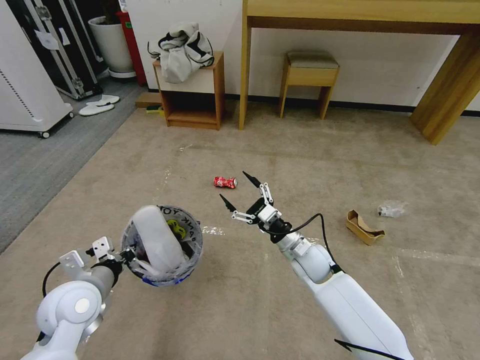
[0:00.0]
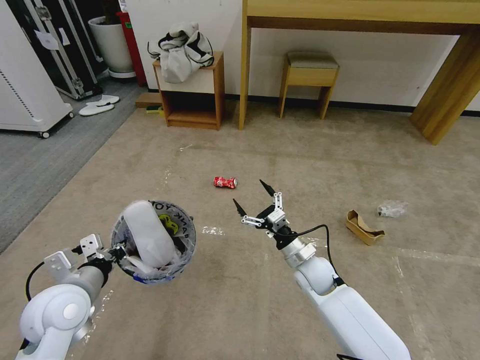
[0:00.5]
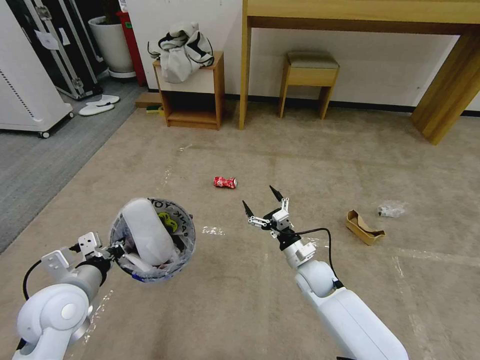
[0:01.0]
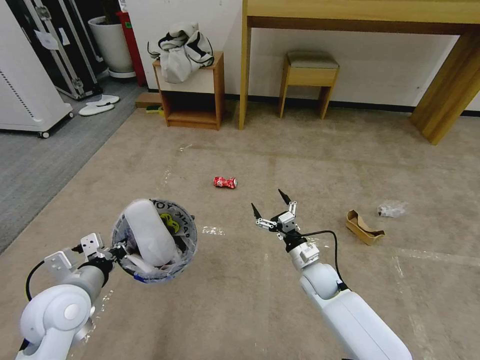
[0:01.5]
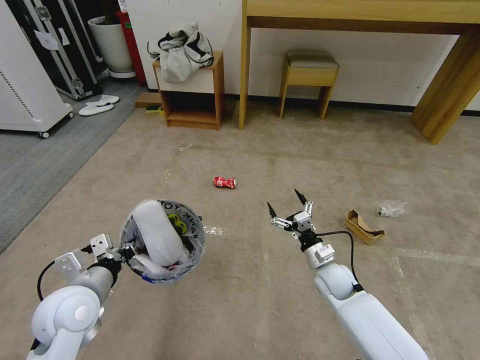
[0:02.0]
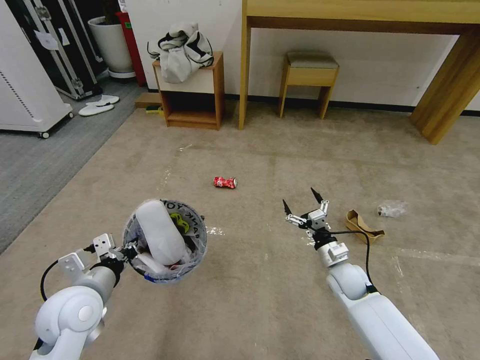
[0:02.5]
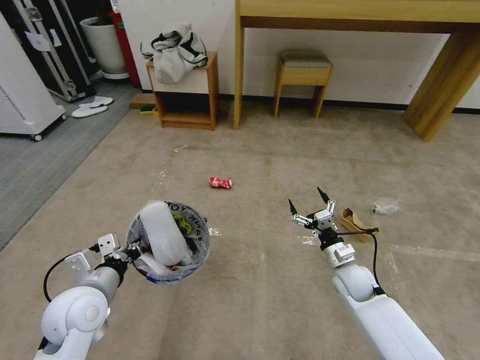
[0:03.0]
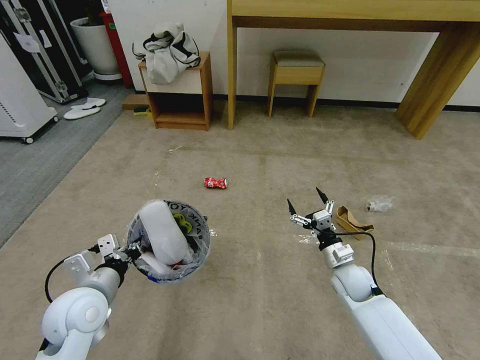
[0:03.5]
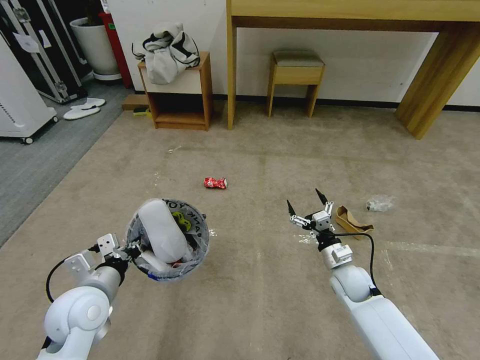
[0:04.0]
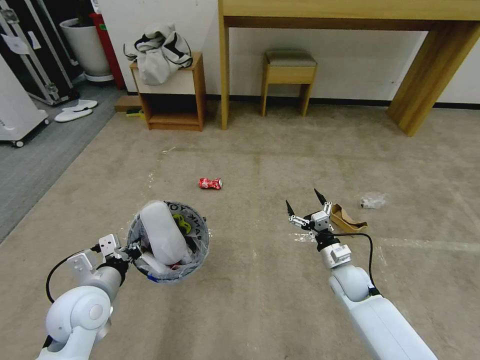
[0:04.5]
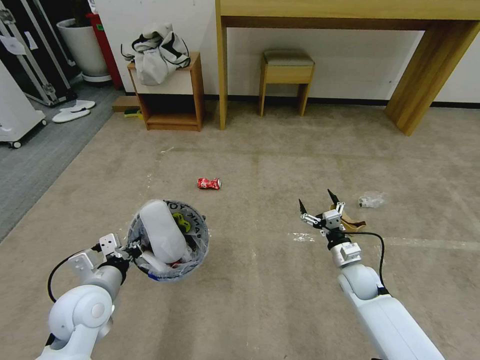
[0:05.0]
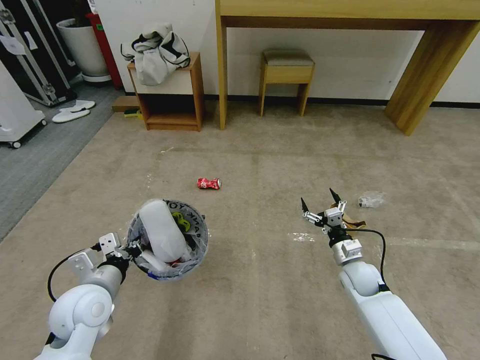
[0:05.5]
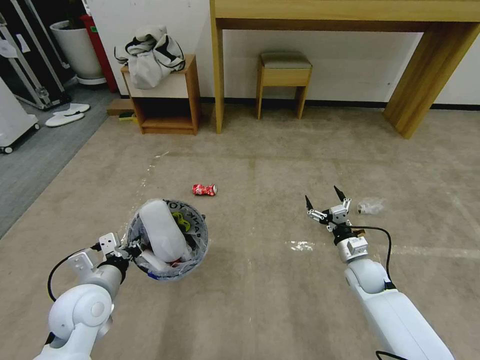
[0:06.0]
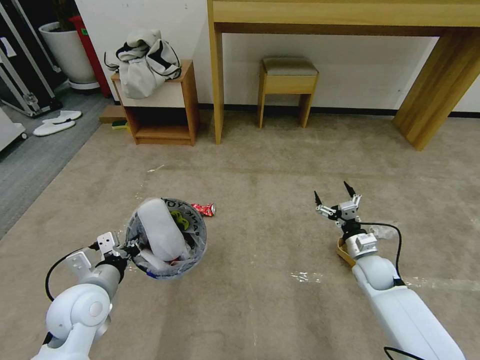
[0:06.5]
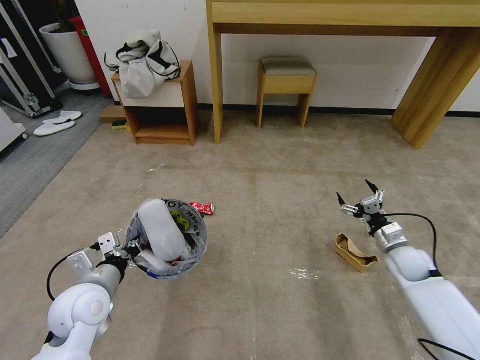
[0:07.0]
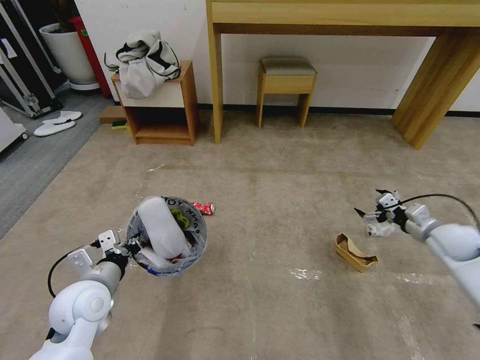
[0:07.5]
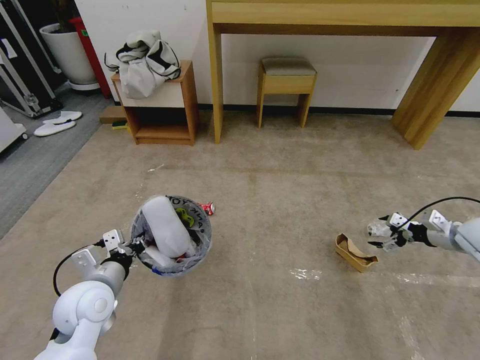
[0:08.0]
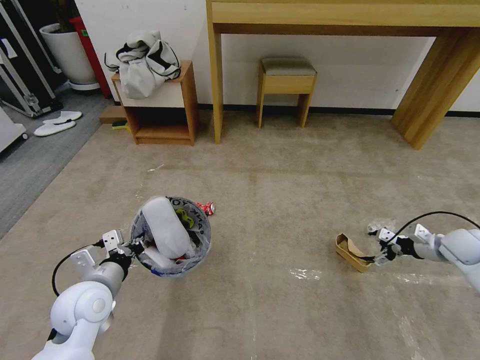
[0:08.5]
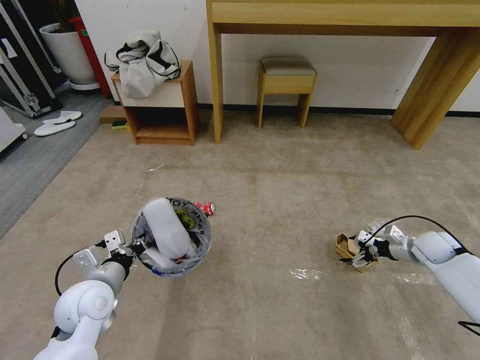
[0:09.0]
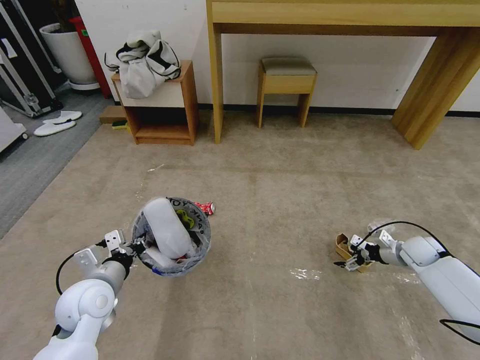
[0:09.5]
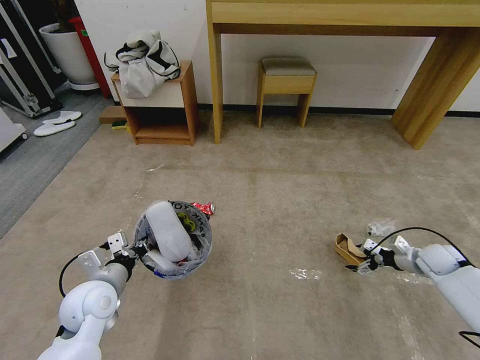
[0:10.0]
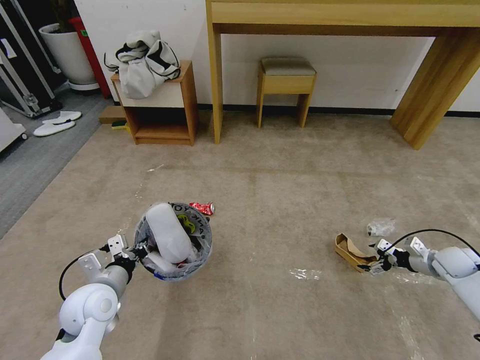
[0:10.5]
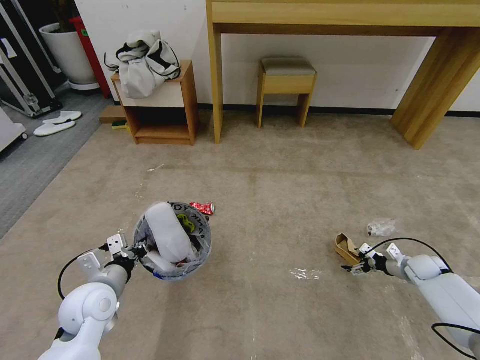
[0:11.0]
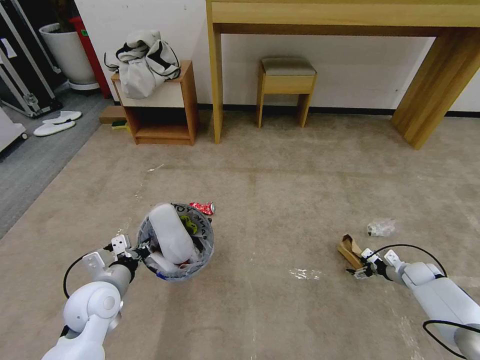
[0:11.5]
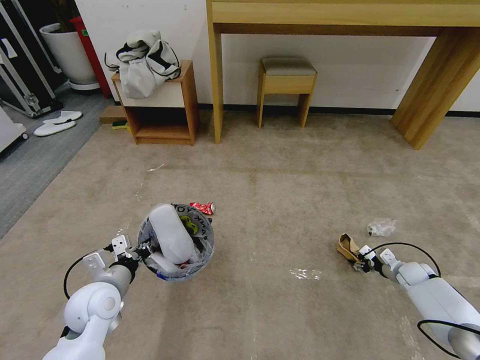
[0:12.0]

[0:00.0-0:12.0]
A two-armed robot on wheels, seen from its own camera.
Task of the whole recording: Pick up the trash bin and place the garbage on the floor into it.
0:00.0 to 0:02.0: The right gripper is displaced to the right and downward by about 10 cm.
0:06.0 to 0:08.0: The right gripper is displaced to the right and upward by some 25 cm.
0:08.0 to 0:10.0: The right gripper travels downward by about 15 cm.
0:10.0 to 0:12.0: The right gripper shifts some 10 cm downward.

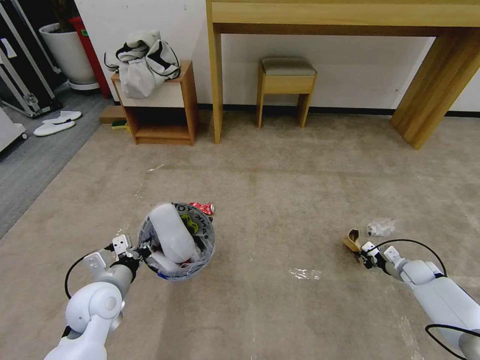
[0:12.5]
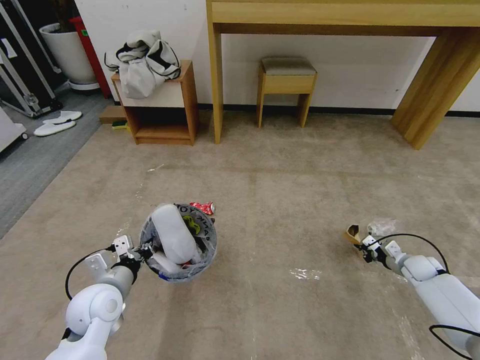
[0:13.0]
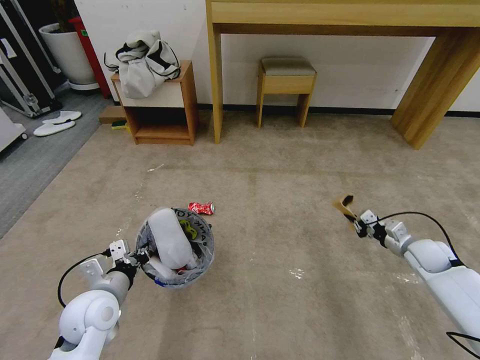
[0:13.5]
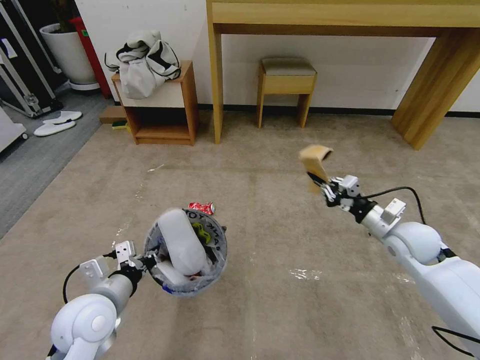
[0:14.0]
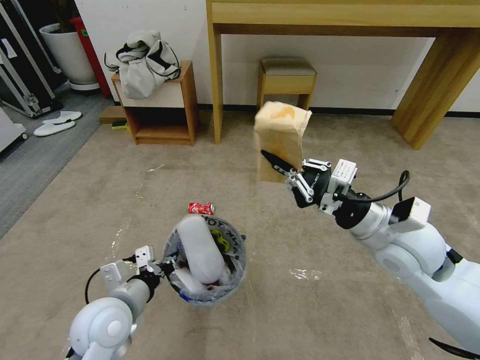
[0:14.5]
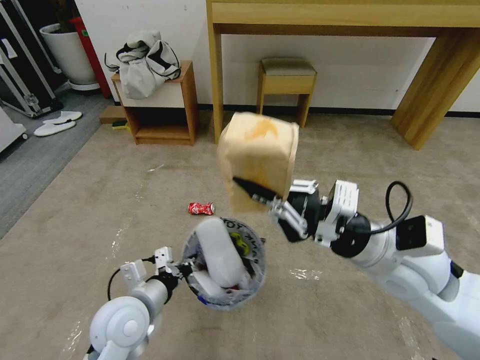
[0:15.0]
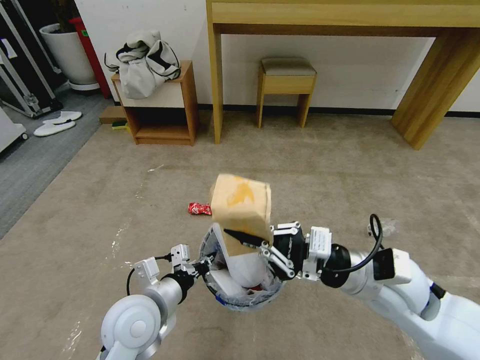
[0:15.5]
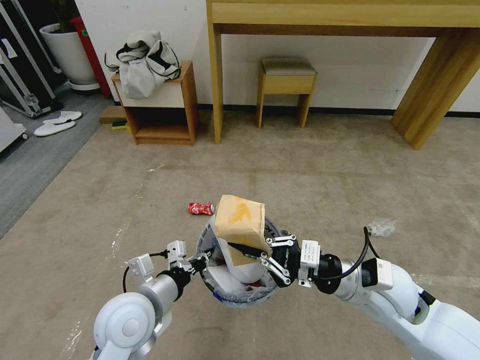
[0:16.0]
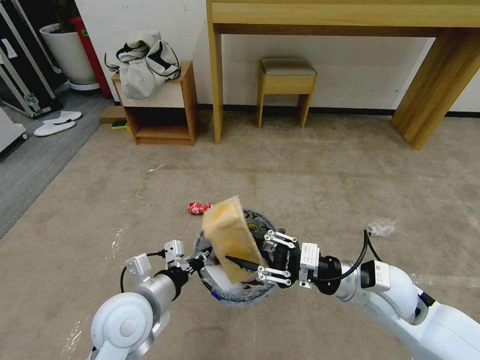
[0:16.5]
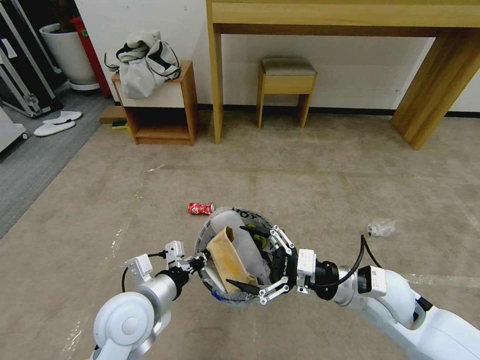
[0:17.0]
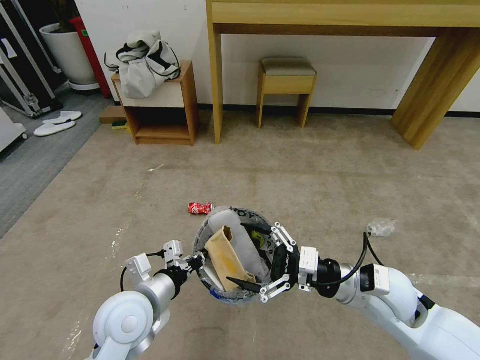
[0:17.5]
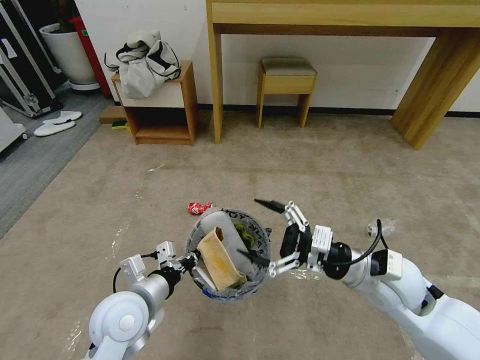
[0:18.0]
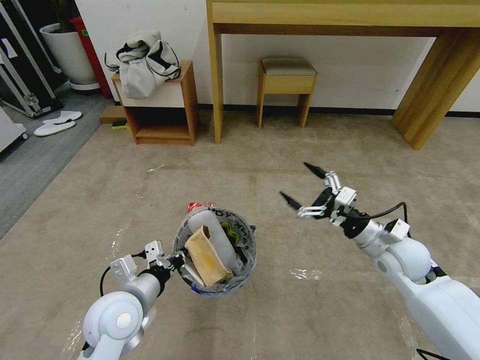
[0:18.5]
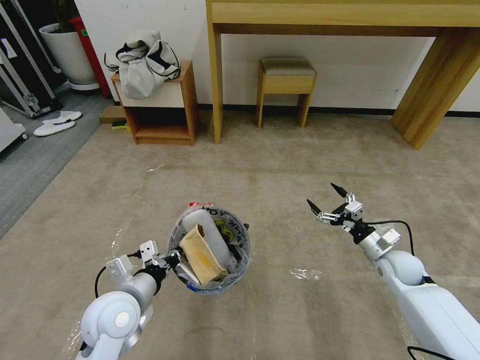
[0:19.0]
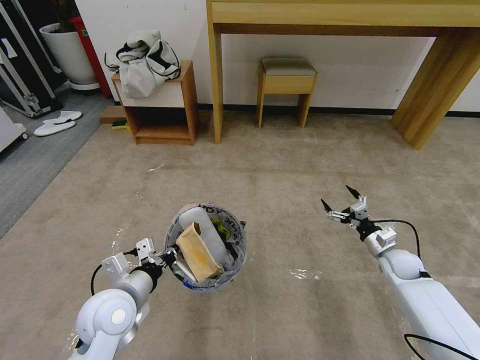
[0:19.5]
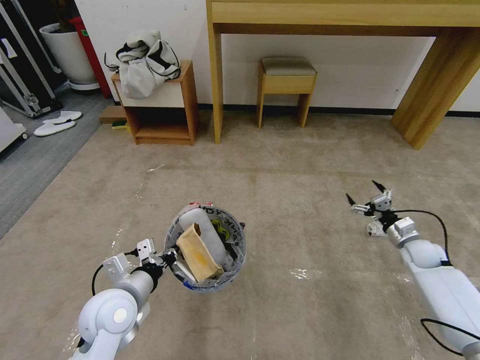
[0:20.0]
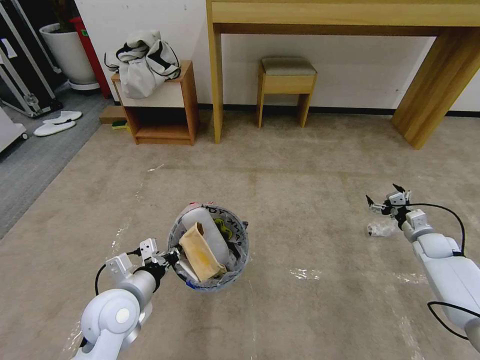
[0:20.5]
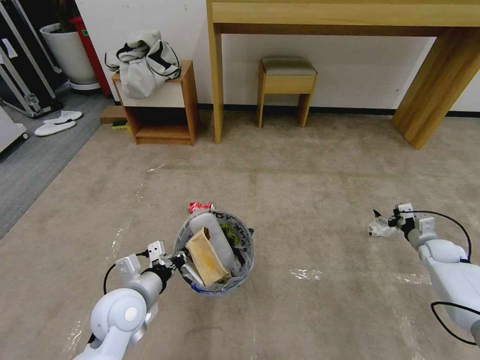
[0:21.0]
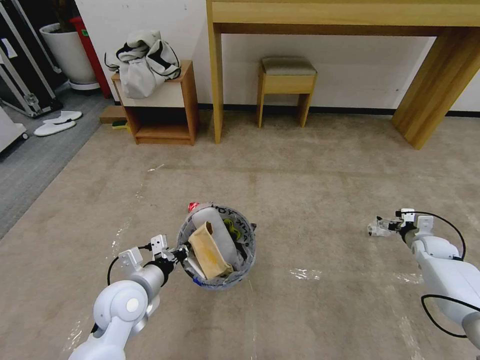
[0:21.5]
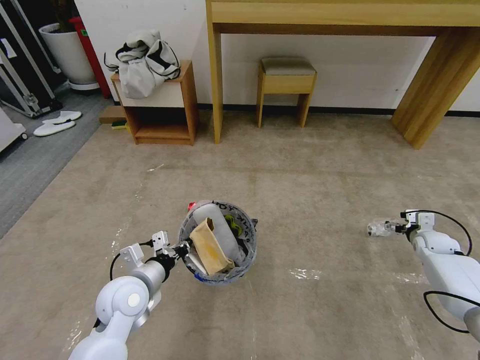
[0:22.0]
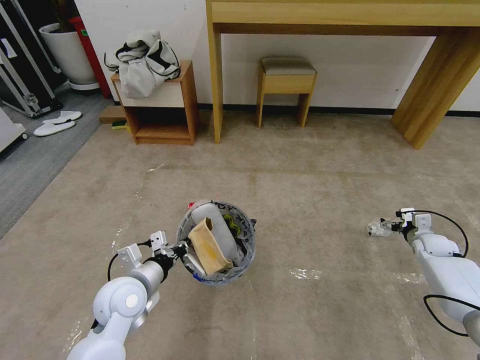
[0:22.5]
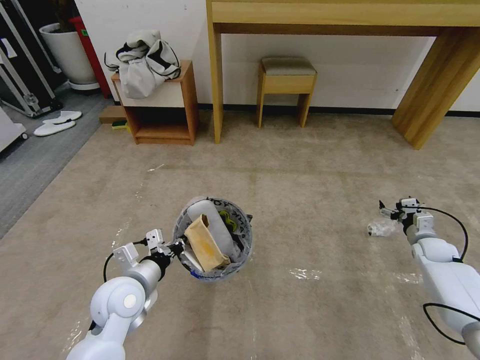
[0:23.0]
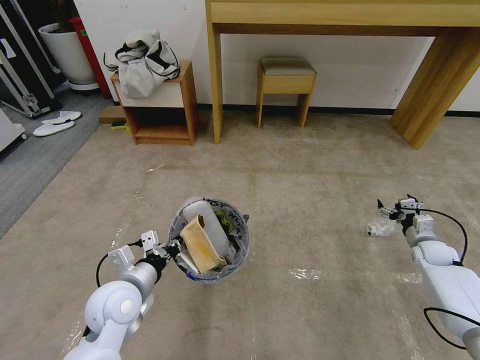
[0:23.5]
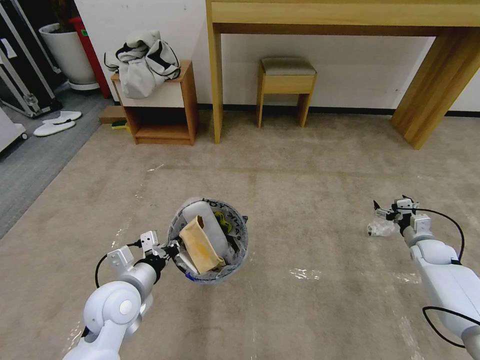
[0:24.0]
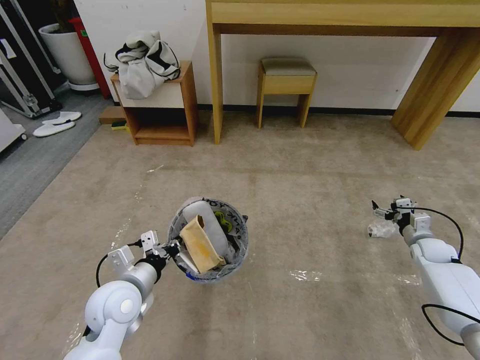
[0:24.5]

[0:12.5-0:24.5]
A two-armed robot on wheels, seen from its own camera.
Task of the whole recording: Pick up the trash bin and place the garbage on the floor into it.
0:12.5 to 0:14.5: The right gripper moves upward and to the left, roughly 40 cm; the left gripper moves approximately 10 cm.
0:14.5 to 0:16.5: The left gripper moves roughly 5 cm, while the right gripper shifts some 10 cm downward, and opens its fingers.
0:16.5 to 0:18.5: The right gripper shifts approximately 10 cm to the right and forward, and opens its fingers.
0:18.5 to 0:20.5: The right gripper heads to the right, downward and forward, covering approximately 25 cm.

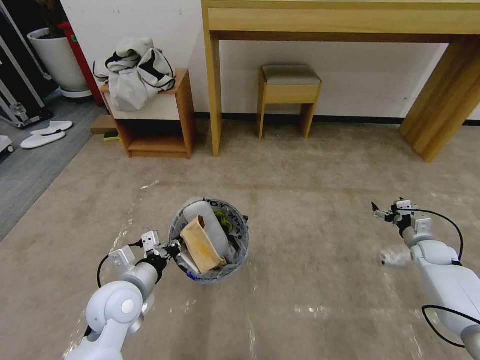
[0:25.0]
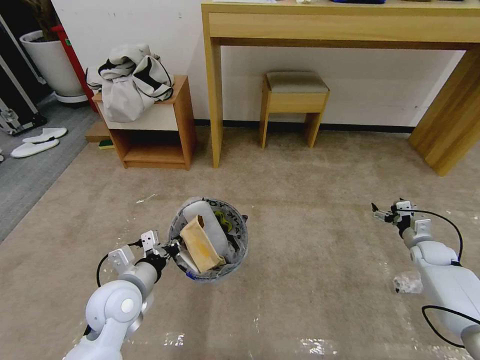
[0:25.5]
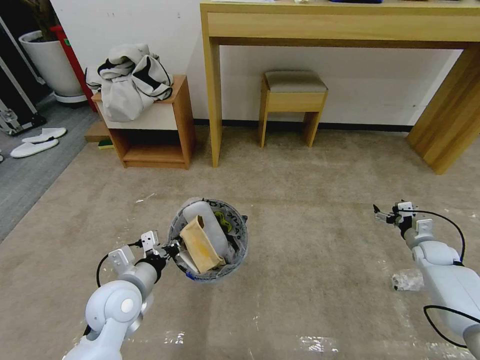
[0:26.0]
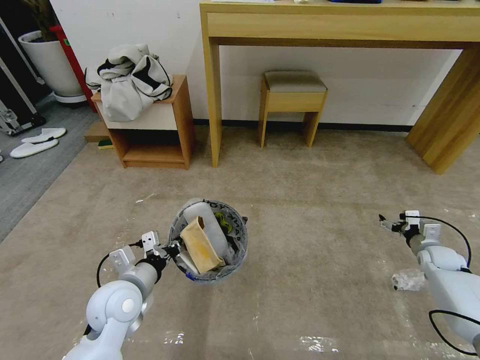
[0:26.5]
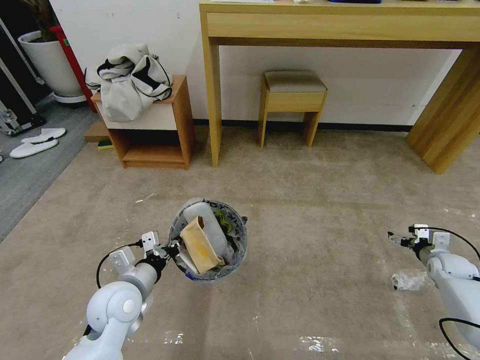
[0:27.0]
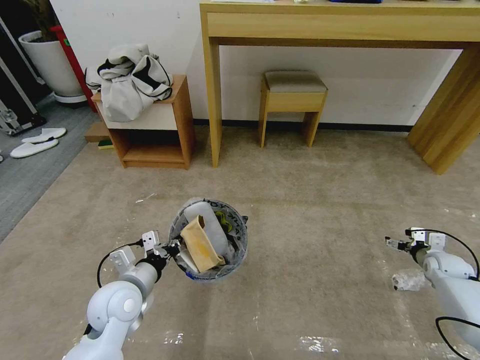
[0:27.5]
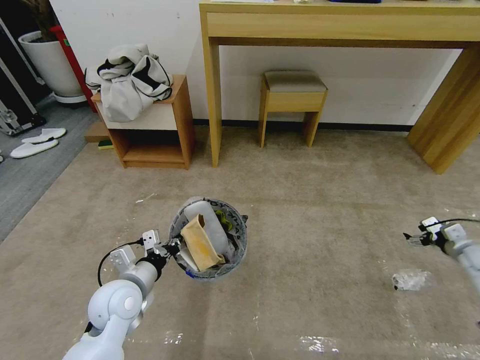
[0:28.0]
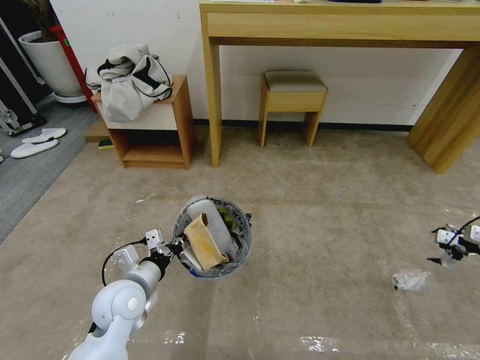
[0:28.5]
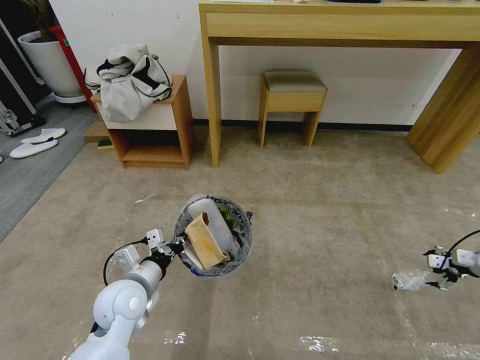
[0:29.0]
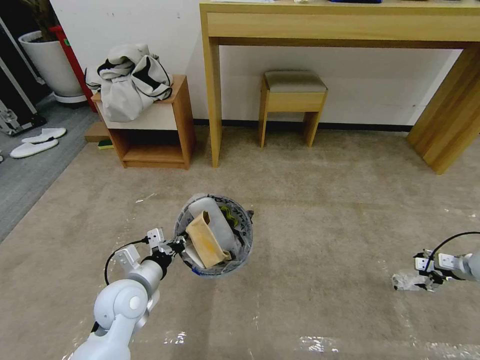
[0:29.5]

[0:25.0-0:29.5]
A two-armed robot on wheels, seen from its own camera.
Task of the whole recording: Pick up the trash bin and place the garbage on the floor into it.
0:25.0 to 0:27.0: The right gripper shifts by roughly 5 cm.
0:27.0 to 0:29.5: The right gripper shifts approximately 10 cm to the right, and reaches approximately 15 cm upward, then returns.
